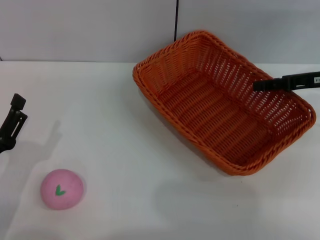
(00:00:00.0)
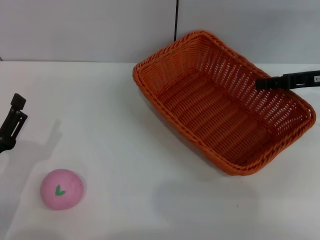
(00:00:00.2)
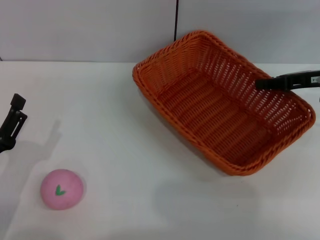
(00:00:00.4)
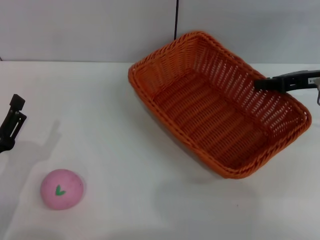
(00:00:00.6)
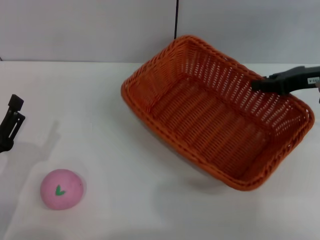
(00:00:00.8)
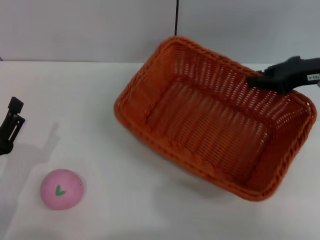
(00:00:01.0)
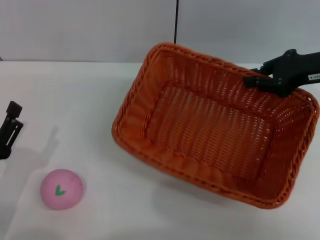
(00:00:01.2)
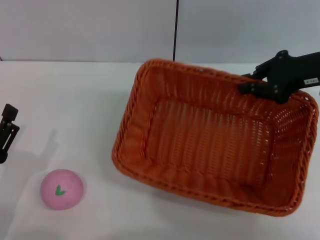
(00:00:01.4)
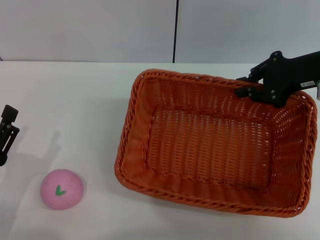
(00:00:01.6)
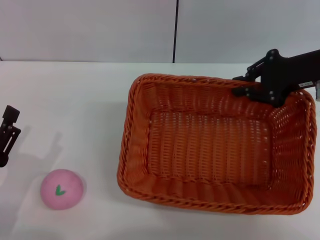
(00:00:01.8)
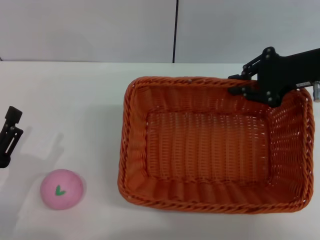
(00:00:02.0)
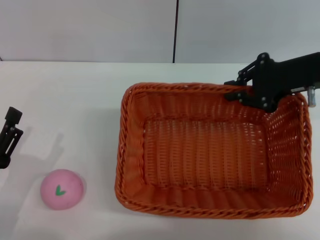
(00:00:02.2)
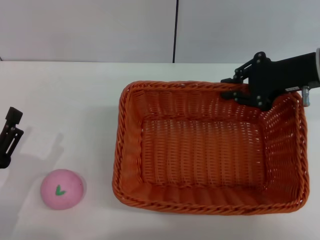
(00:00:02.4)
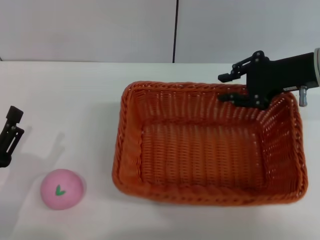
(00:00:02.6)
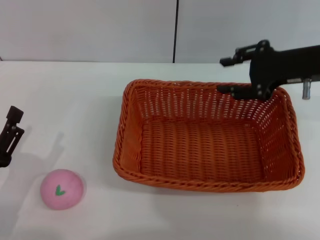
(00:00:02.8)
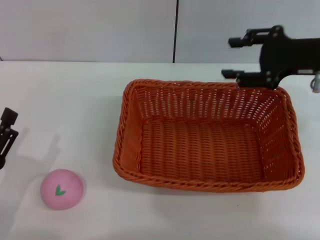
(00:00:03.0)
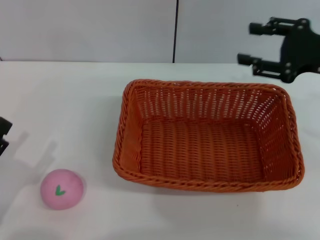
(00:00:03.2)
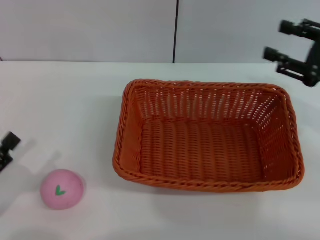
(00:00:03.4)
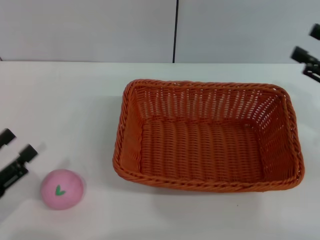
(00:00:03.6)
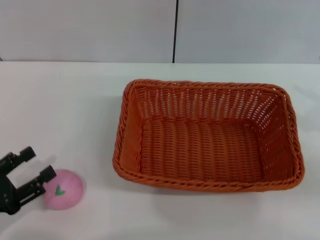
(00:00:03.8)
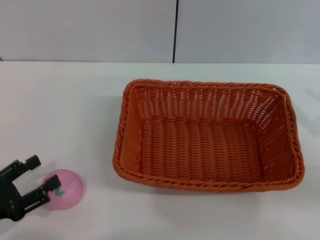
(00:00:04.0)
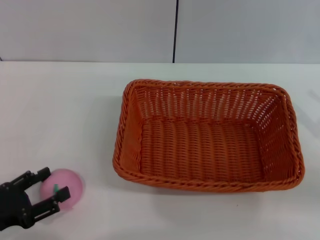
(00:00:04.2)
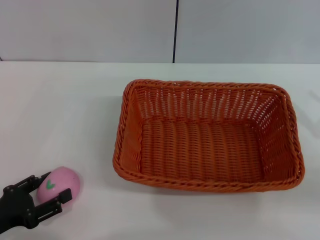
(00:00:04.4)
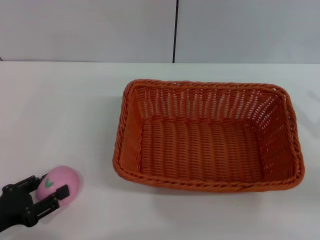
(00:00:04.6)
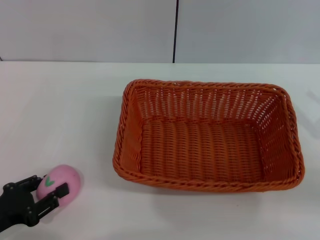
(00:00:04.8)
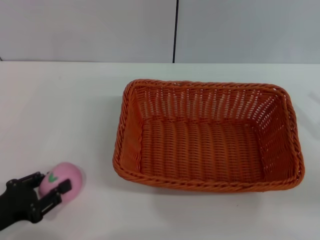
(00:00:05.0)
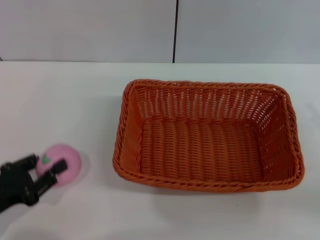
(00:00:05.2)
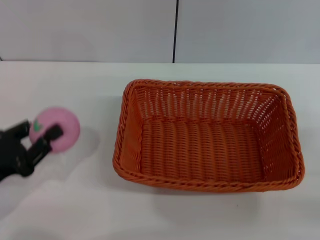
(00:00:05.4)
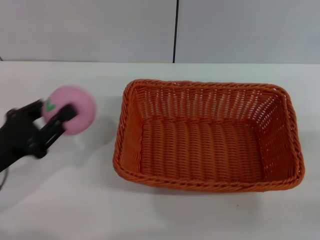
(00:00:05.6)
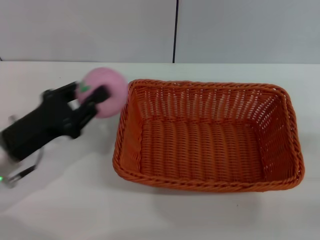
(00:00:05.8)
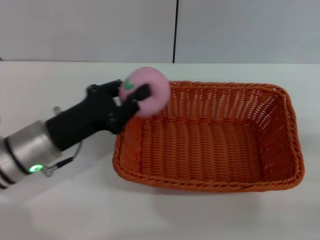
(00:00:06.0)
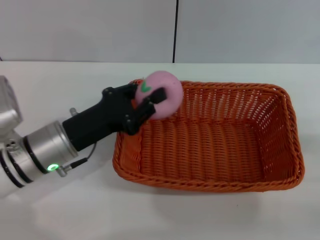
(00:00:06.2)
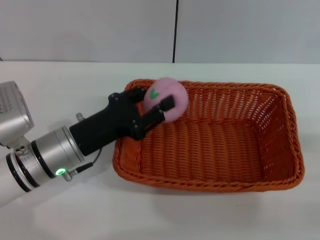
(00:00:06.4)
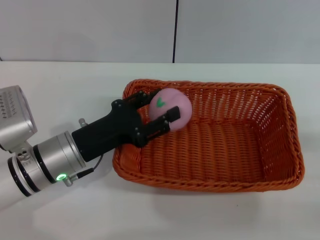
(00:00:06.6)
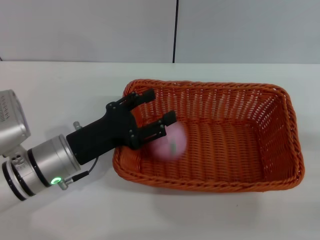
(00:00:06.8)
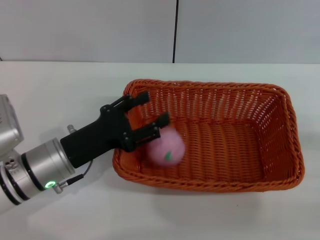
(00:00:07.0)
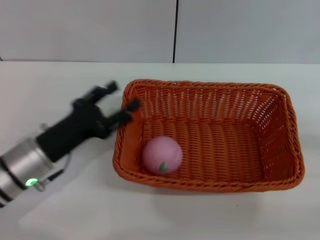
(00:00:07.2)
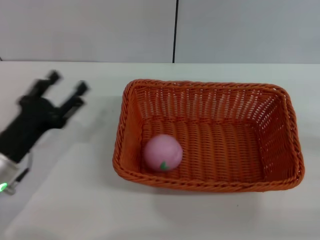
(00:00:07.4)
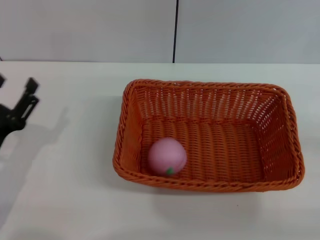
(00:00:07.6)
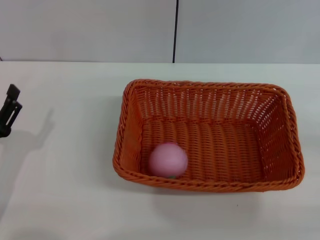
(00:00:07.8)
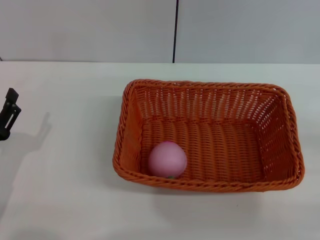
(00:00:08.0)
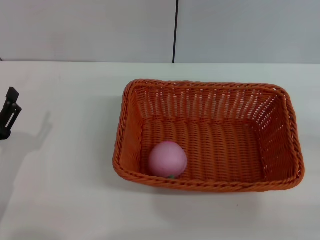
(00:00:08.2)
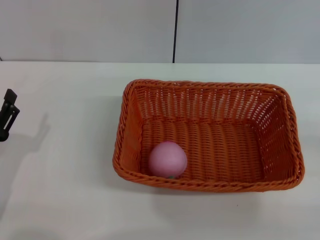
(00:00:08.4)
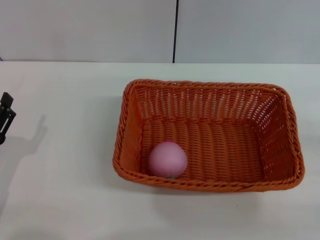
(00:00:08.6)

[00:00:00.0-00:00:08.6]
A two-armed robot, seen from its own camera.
Step, 00:00:01.2 to 00:00:03.2: Place the light basket in the center of view with the right gripper.
Step, 00:00:03.4 to 00:00:05.4: Pick up the peach with the left gripper.
Step, 00:00:05.8 to 00:00:07.2: Place the peach into the basket with the left gripper.
00:00:00.0 to 00:00:01.4: The right gripper moves some 5 cm, and closes.
00:00:02.8 to 00:00:04.4: The right gripper shifts about 20 cm backward, to the right and downward, and opens its fingers.
00:00:04.4 to 00:00:05.8: The right gripper changes place by roughly 5 cm; the left gripper shifts roughly 15 cm forward, to the right and upward, and closes.
00:00:05.8 to 00:00:07.2: The left gripper opens.
00:00:07.2 to 00:00:08.6: The left gripper travels to the left and backward by some 10 cm.
